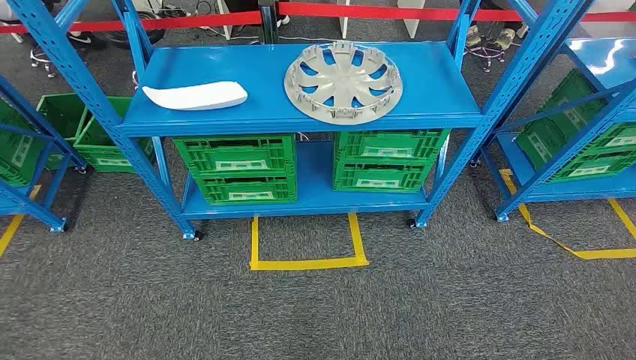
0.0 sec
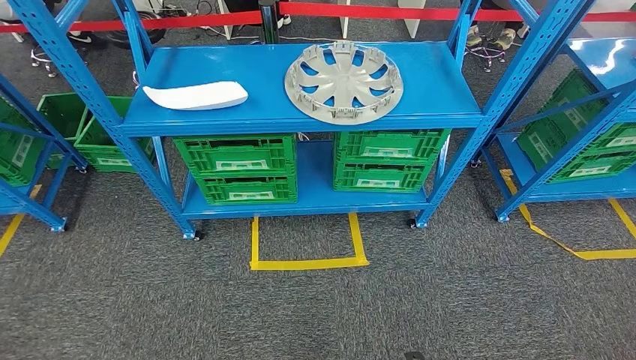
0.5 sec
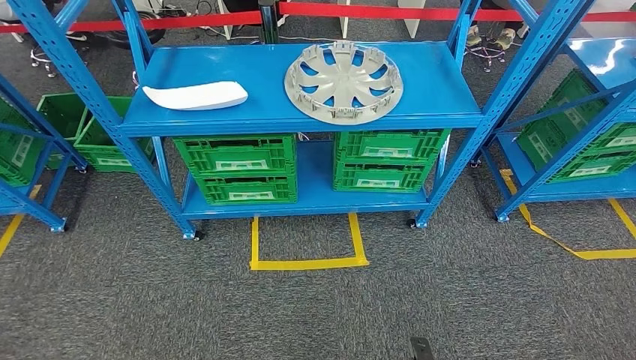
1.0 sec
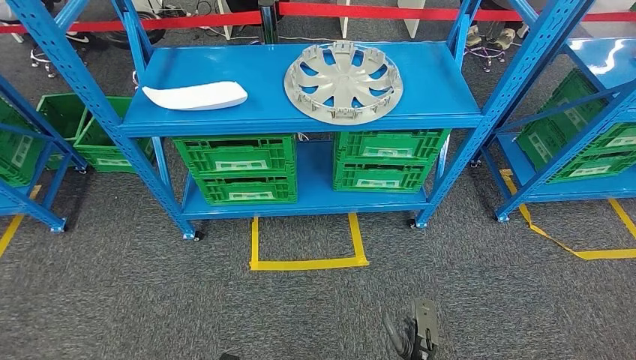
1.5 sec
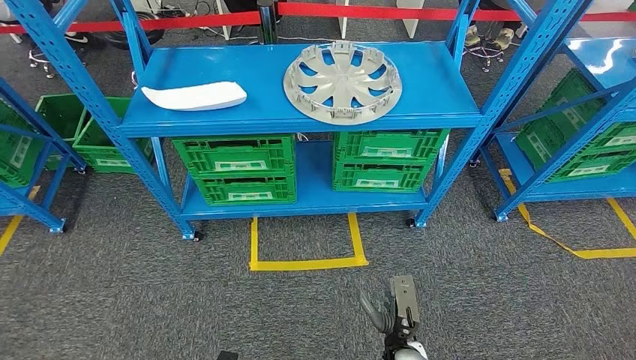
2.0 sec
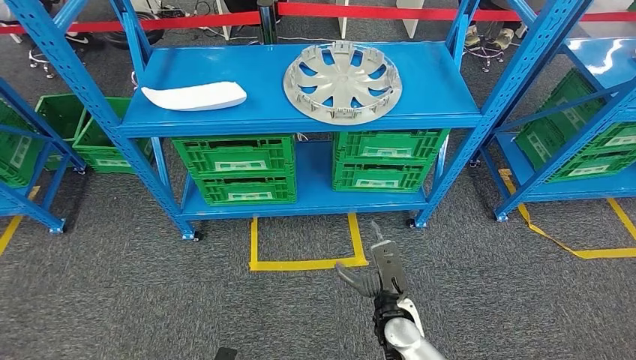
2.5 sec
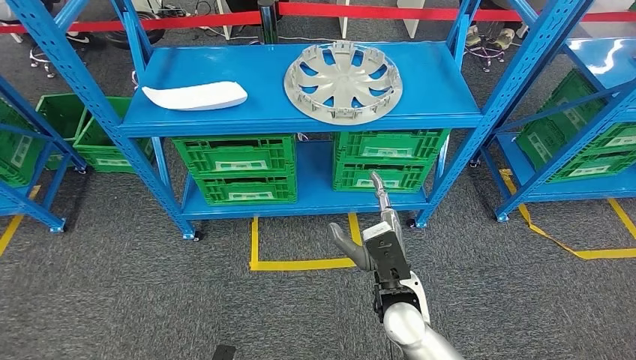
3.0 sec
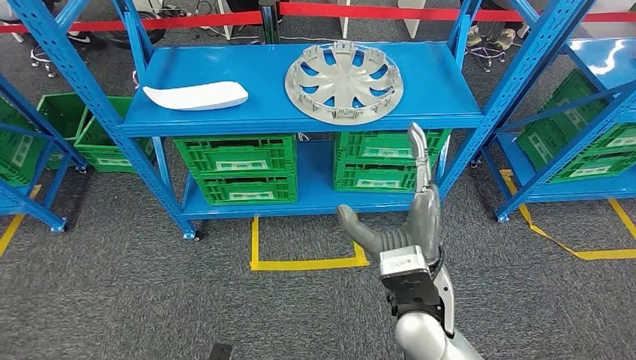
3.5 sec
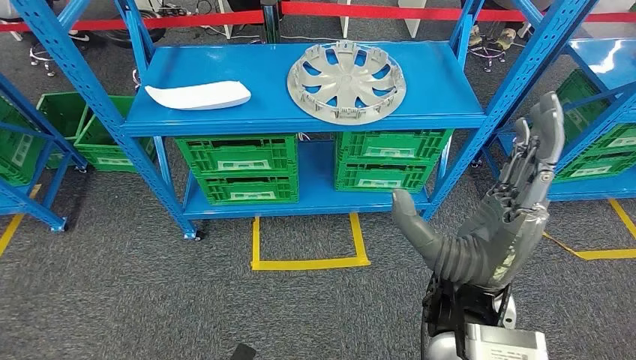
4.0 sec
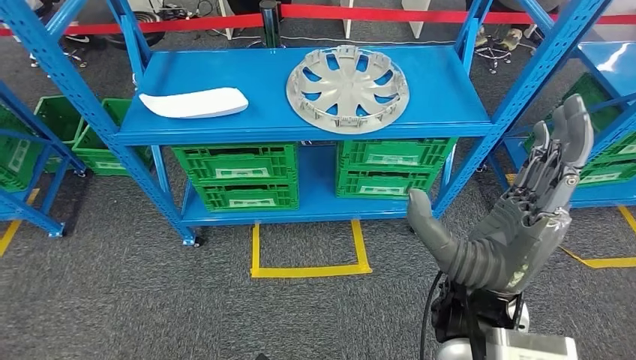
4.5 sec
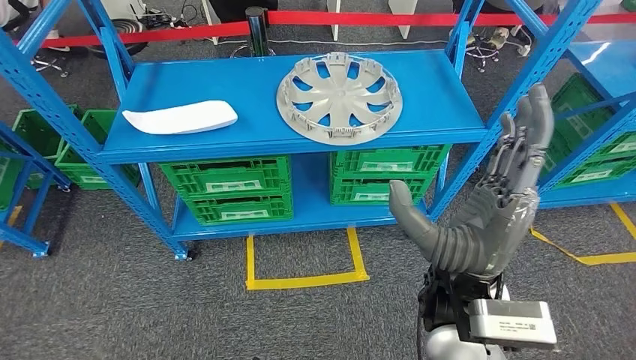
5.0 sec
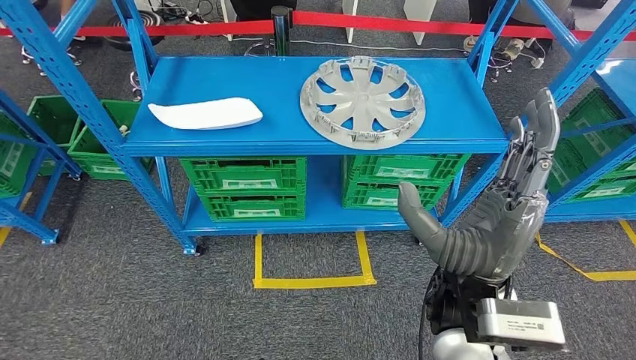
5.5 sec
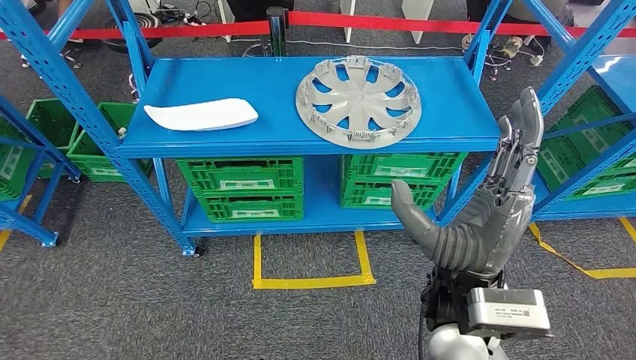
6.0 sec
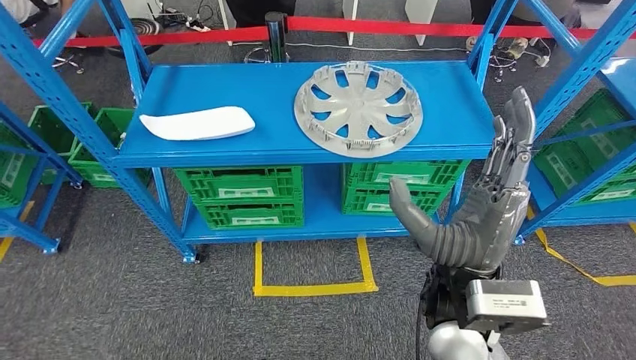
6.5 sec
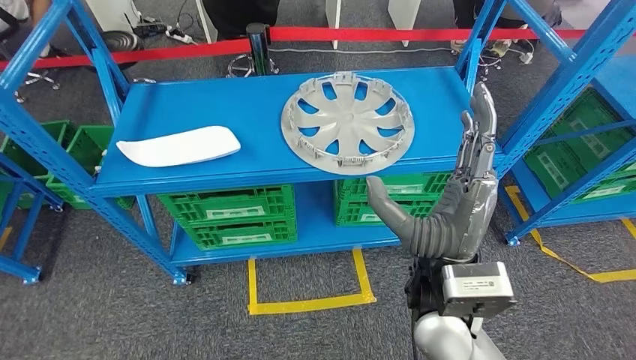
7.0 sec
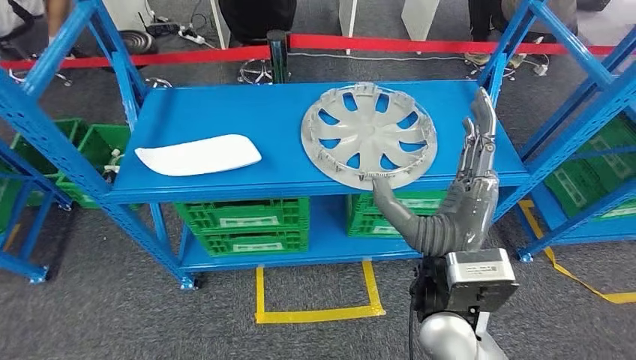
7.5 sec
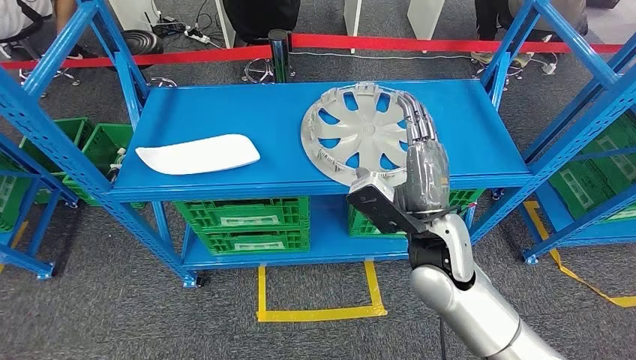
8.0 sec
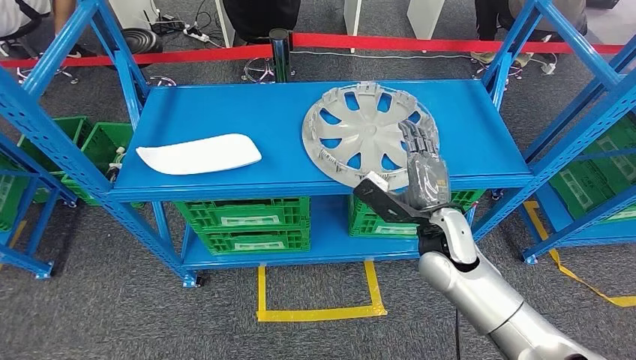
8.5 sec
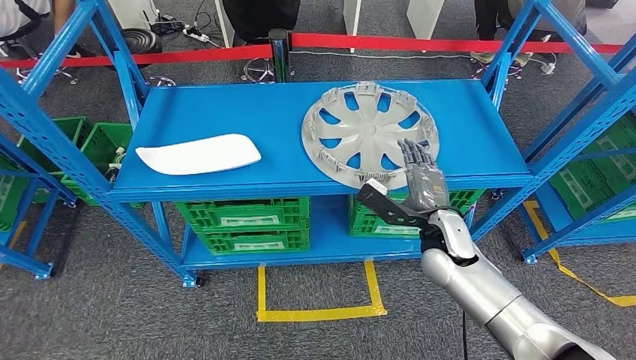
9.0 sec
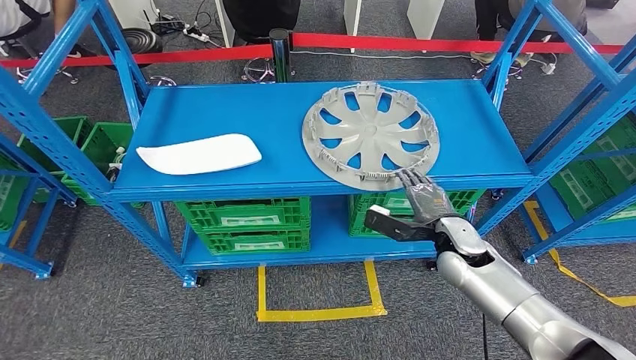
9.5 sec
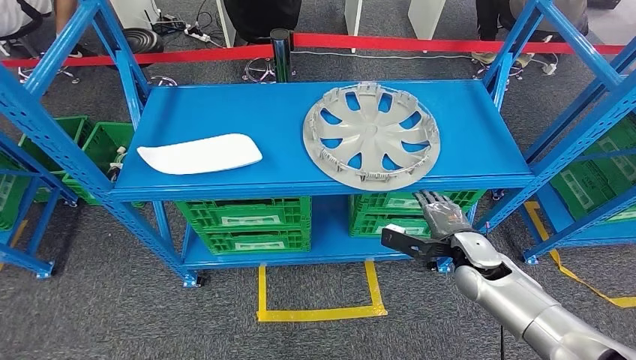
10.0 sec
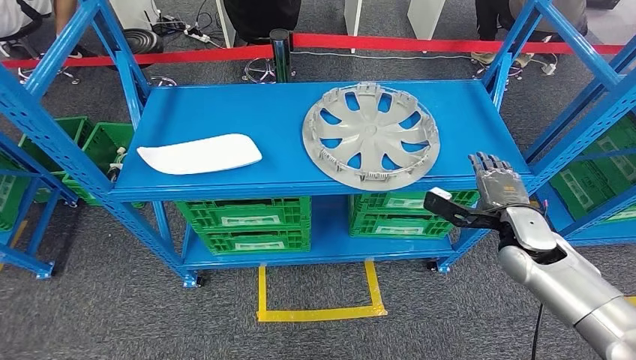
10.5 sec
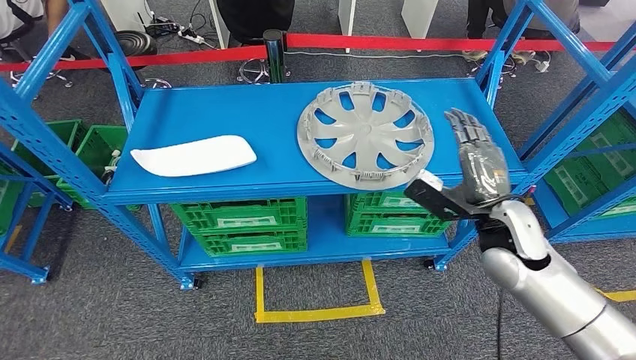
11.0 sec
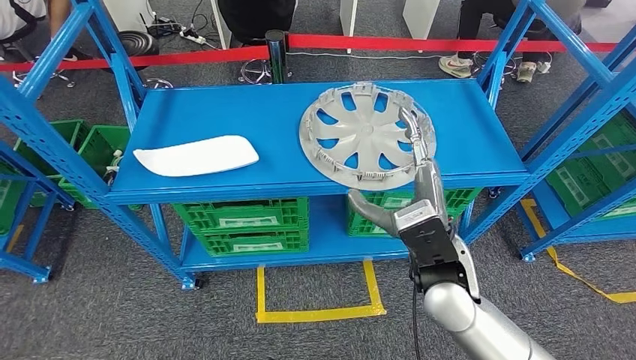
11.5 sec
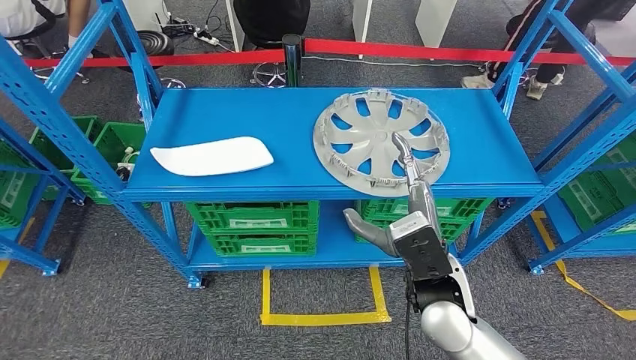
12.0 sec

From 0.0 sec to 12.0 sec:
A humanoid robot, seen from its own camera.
From 2.0 sec to 4.0 sec: The right hand goes about 35 cm upward.
From 8.0 sec to 10.0 sec: The right hand shifts about 20 cm to the right and downward.

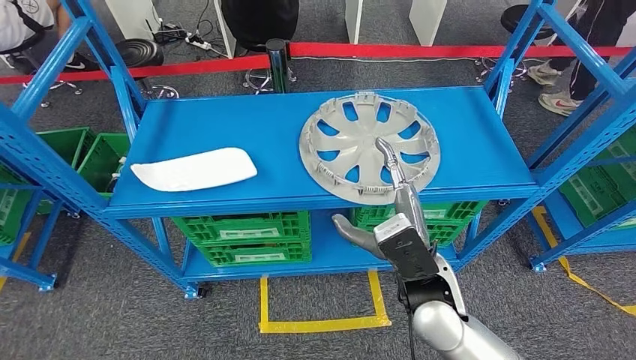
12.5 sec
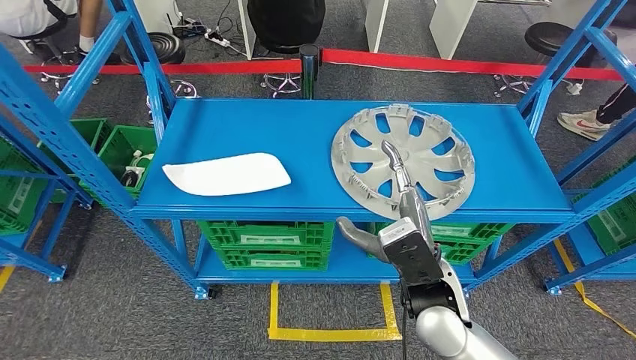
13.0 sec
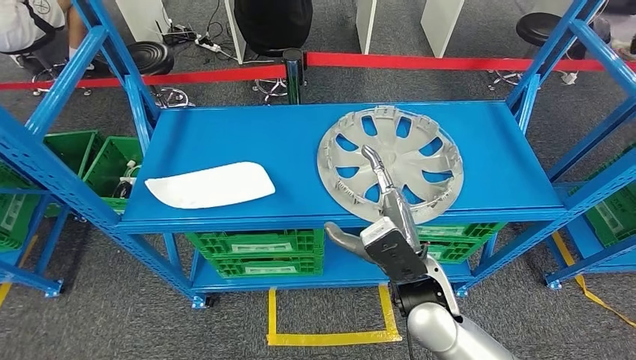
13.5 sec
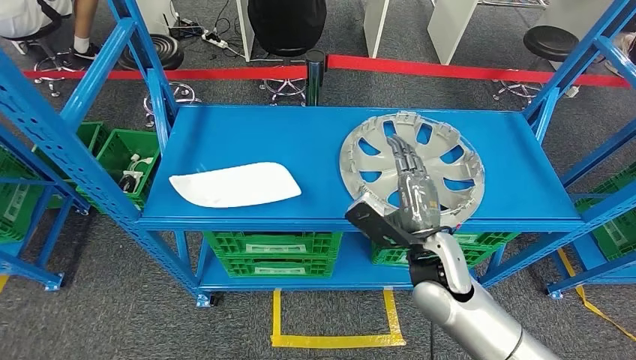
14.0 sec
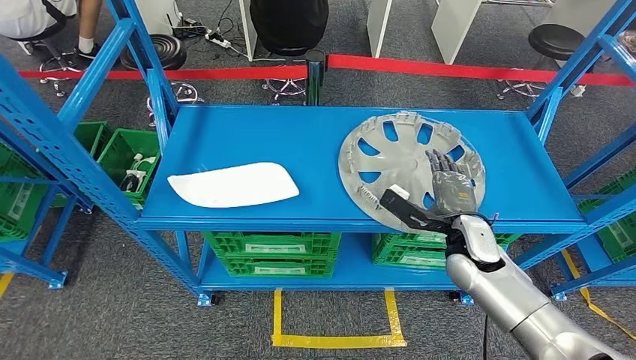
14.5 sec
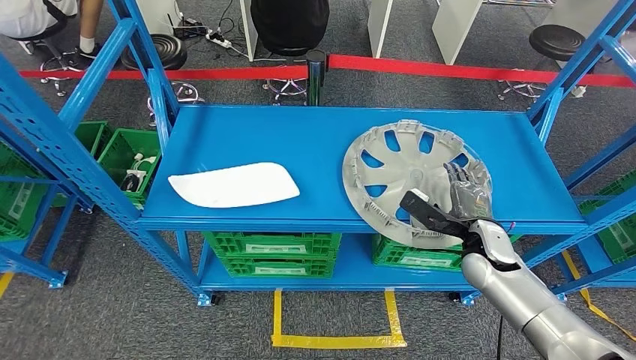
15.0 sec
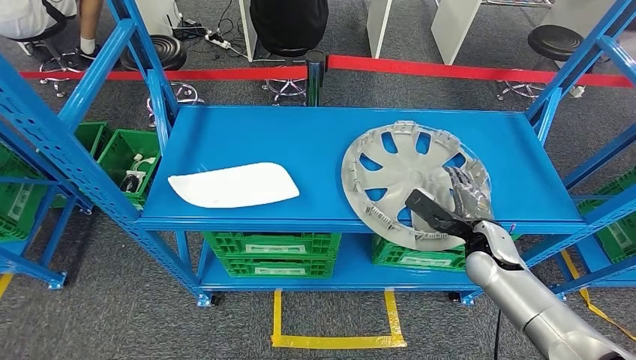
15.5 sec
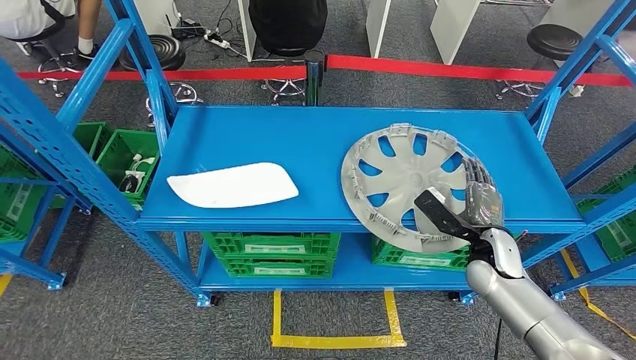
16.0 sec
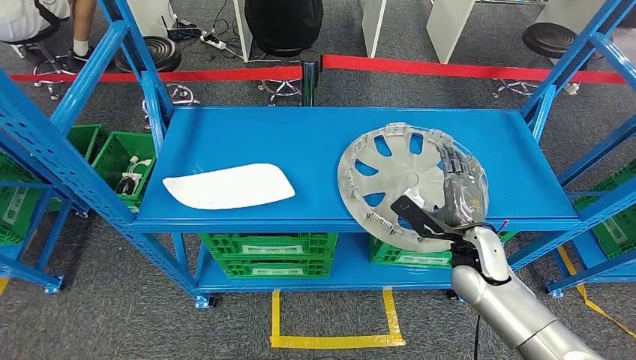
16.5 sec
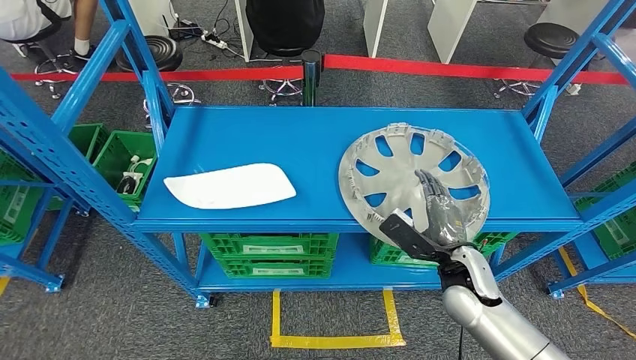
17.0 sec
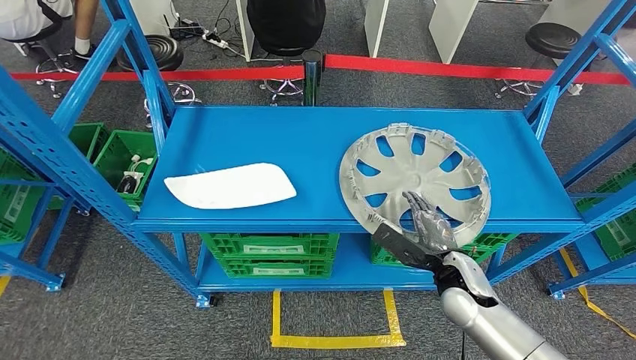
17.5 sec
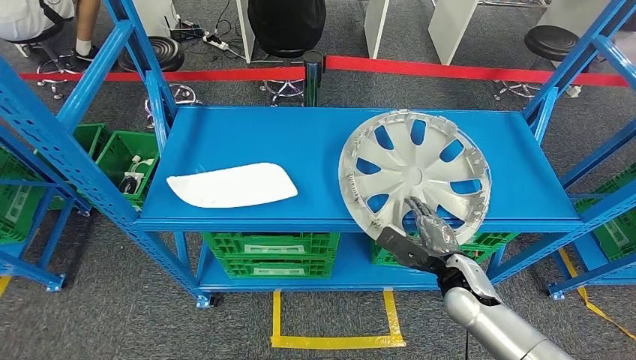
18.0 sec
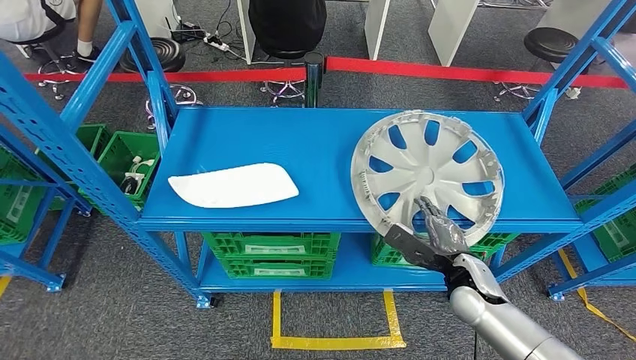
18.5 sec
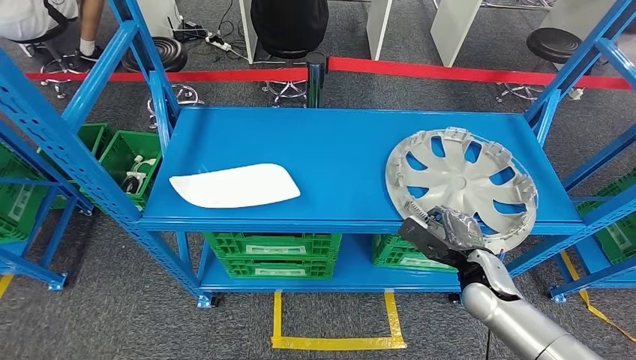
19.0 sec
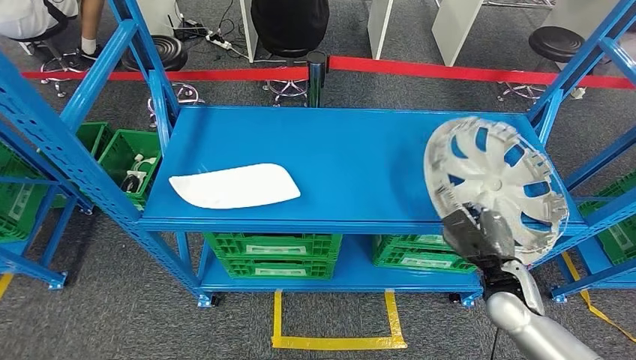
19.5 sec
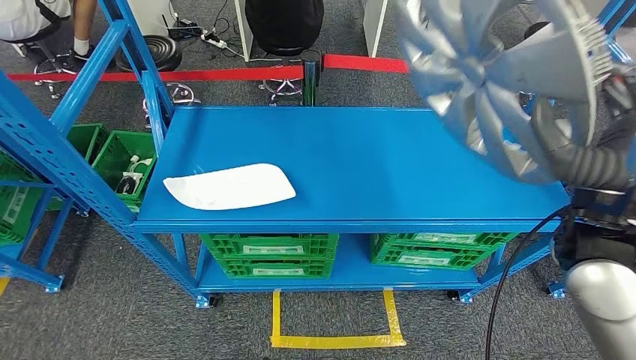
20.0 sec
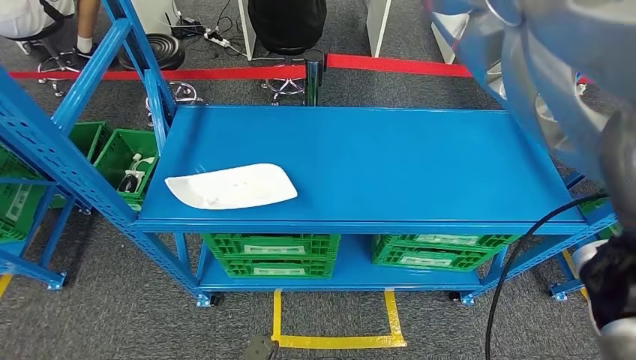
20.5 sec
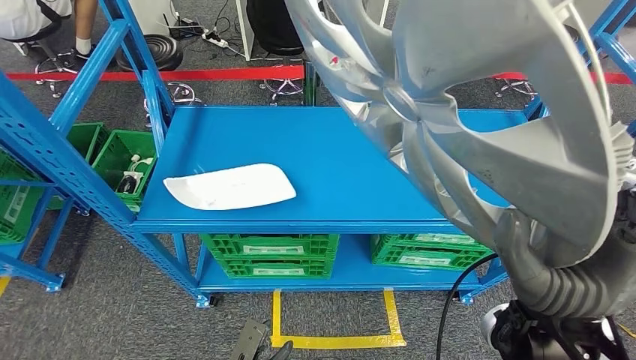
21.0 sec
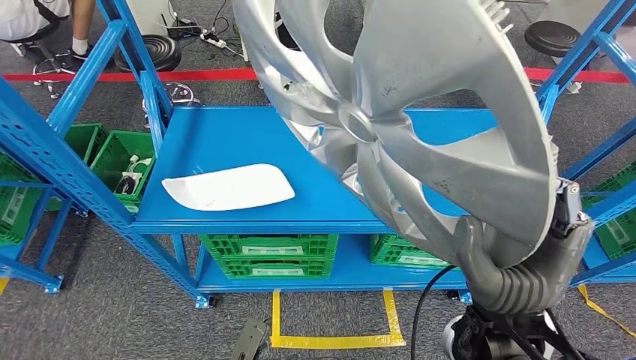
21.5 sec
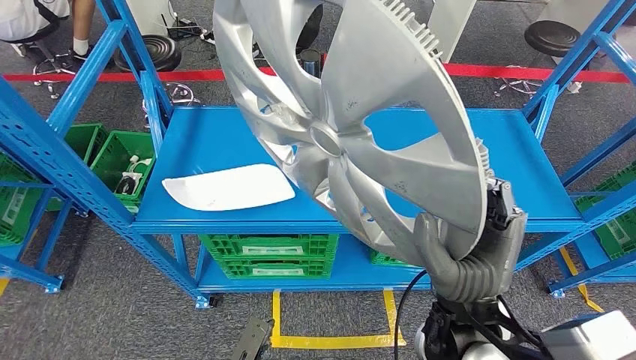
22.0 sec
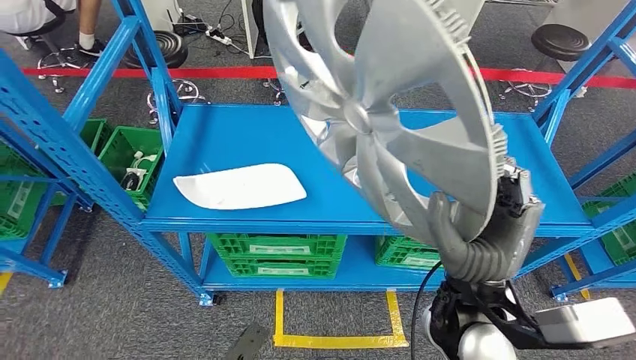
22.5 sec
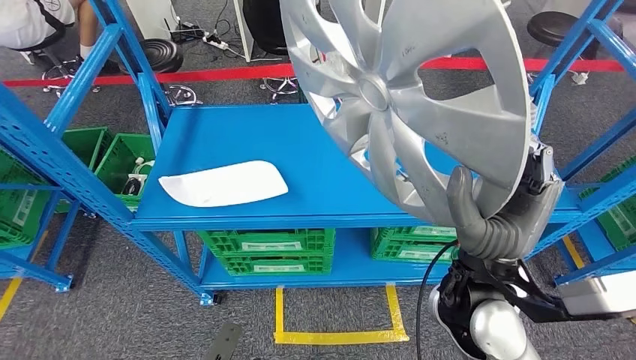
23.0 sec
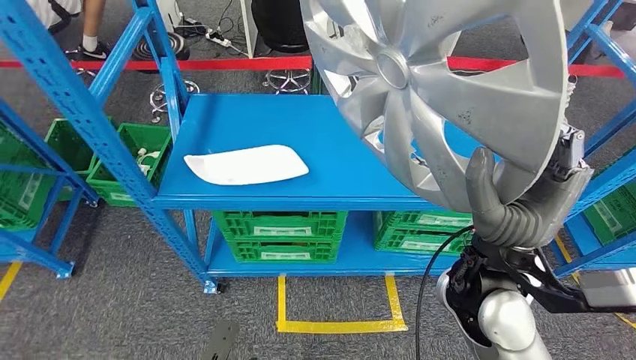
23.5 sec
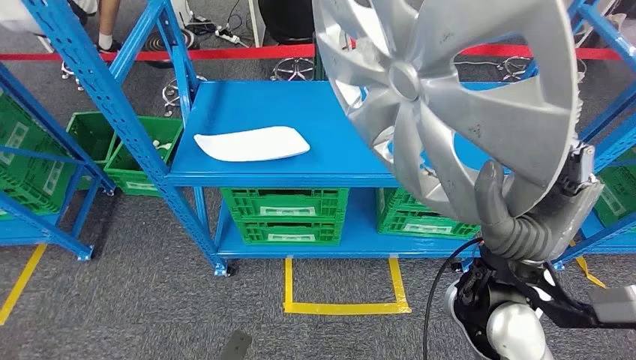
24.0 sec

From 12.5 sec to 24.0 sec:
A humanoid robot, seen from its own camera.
Step, from 12.5 sec to 22.0 sec: Pick up the small component from the shelf.
